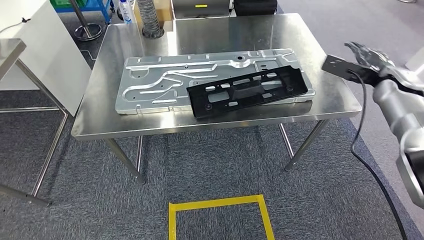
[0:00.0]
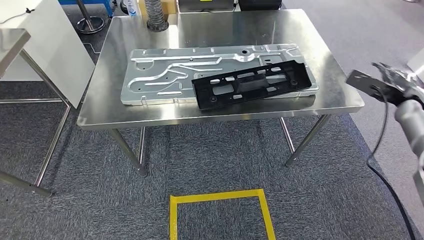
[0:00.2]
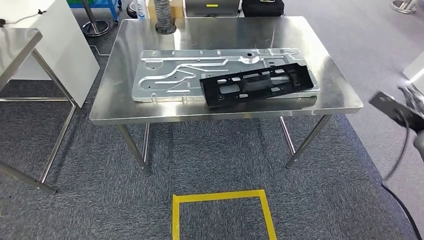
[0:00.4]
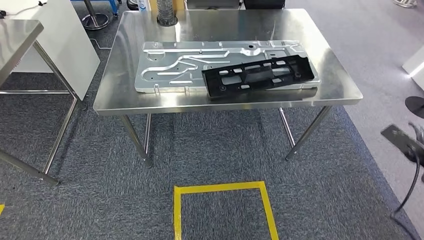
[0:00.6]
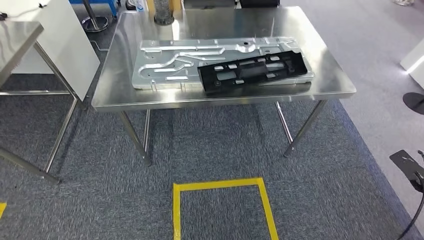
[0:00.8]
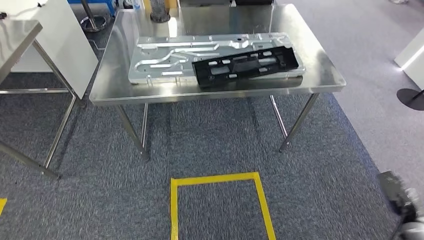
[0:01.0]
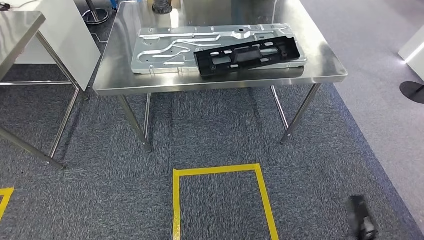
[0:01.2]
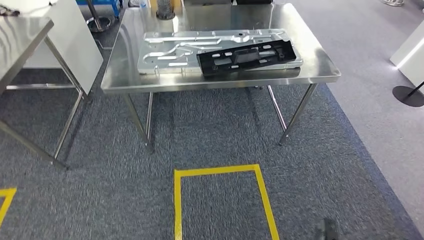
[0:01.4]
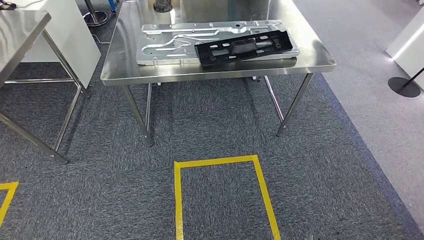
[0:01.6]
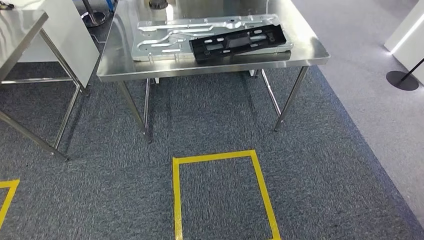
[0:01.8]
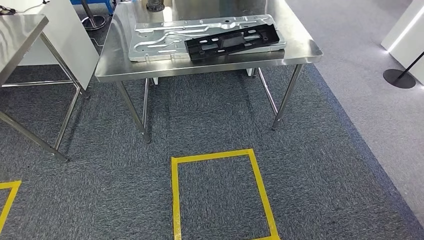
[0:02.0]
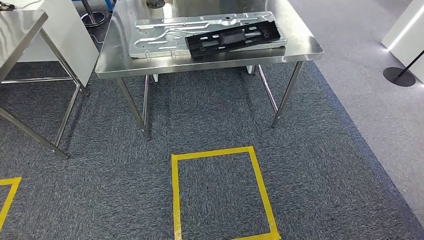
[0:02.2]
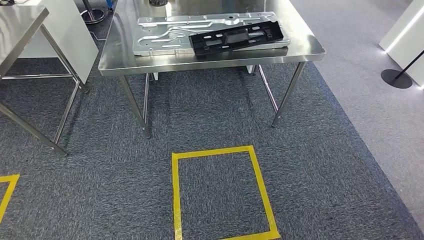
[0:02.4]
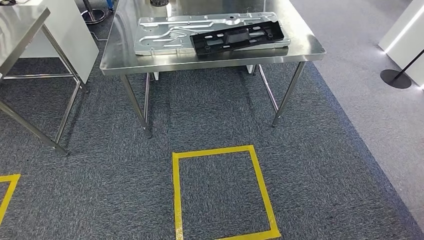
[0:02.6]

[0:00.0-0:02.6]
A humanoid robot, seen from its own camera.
Step, 0:00.0 to 0:02.6: Move to the initial position of the shelf.

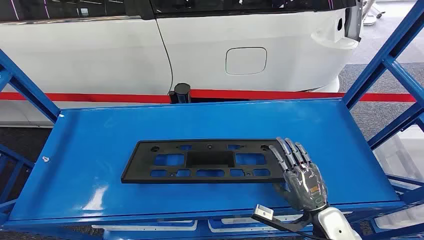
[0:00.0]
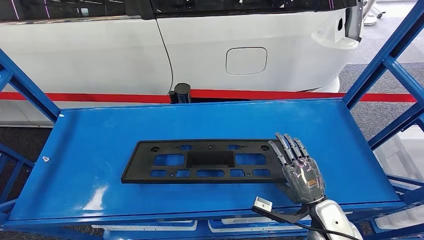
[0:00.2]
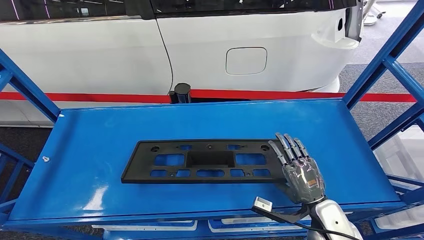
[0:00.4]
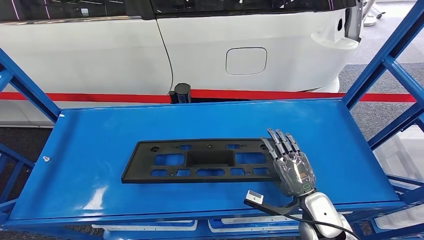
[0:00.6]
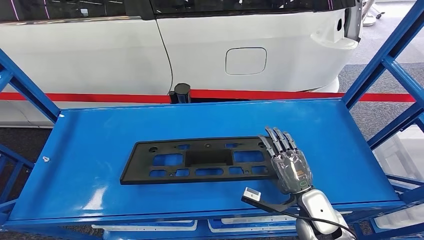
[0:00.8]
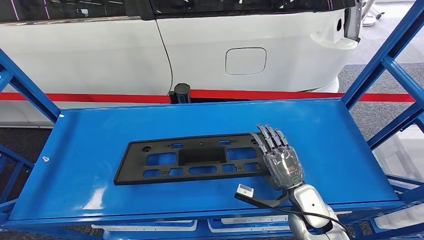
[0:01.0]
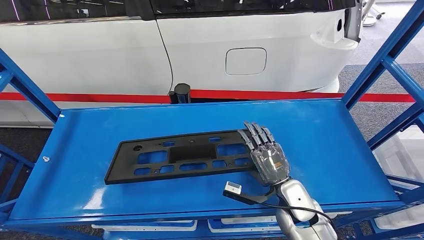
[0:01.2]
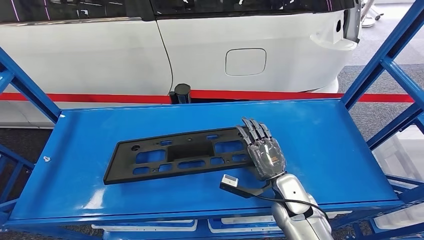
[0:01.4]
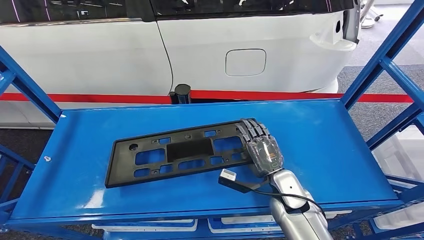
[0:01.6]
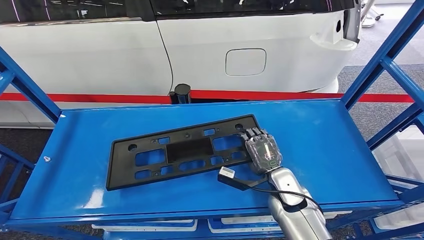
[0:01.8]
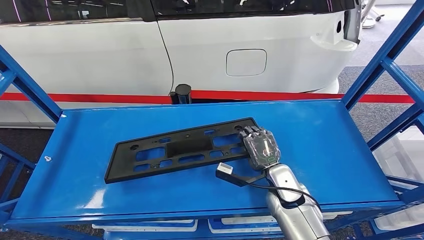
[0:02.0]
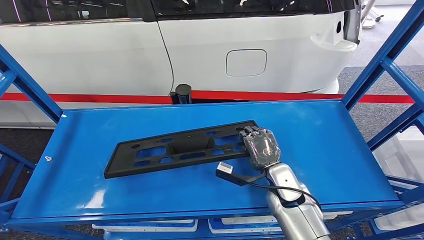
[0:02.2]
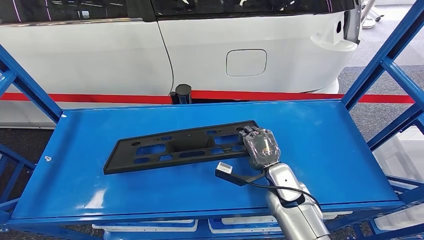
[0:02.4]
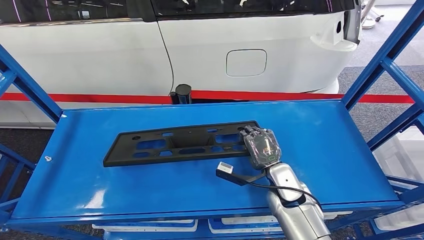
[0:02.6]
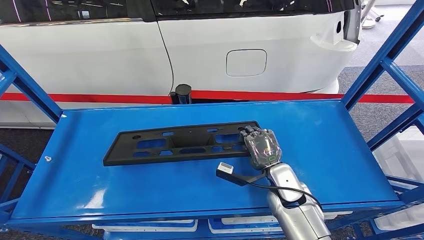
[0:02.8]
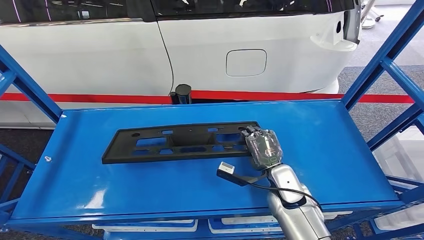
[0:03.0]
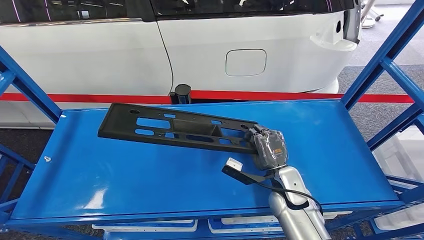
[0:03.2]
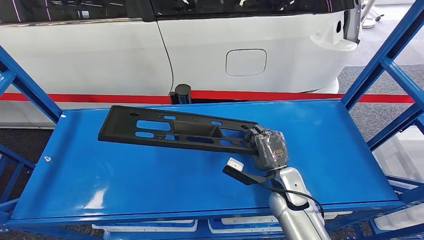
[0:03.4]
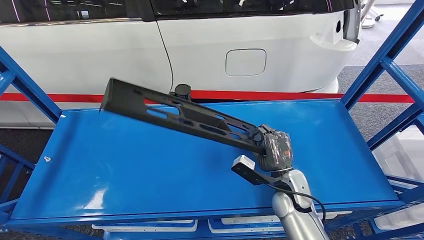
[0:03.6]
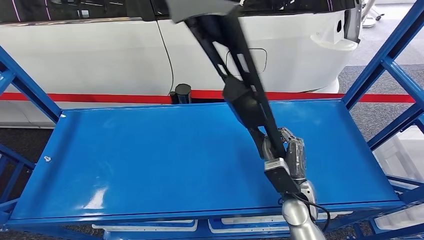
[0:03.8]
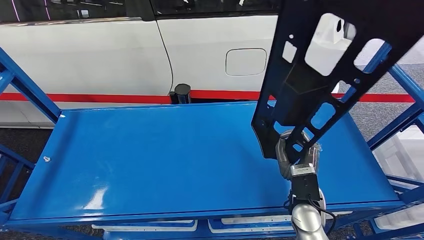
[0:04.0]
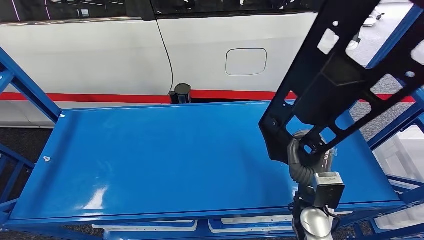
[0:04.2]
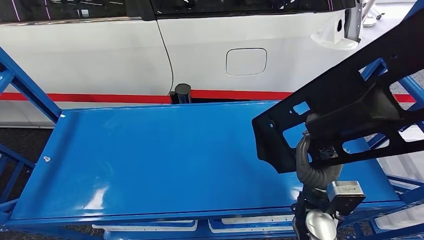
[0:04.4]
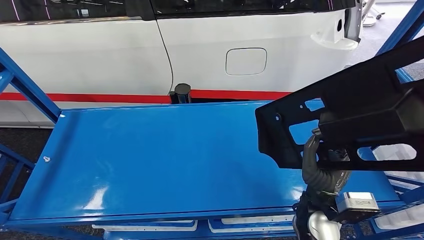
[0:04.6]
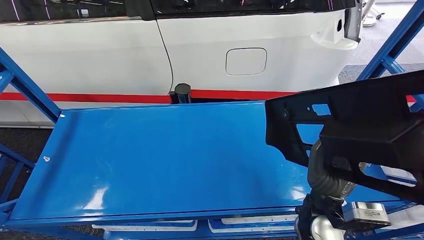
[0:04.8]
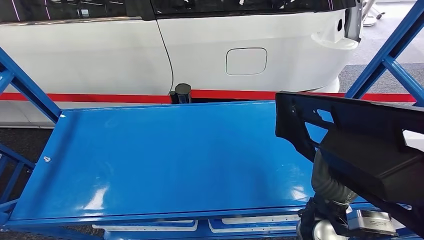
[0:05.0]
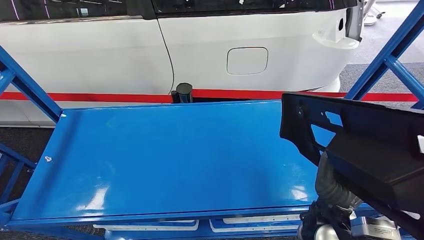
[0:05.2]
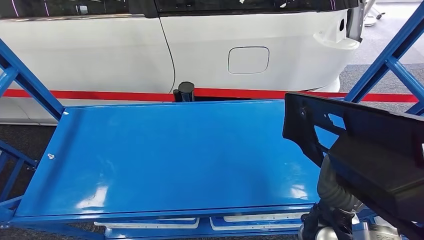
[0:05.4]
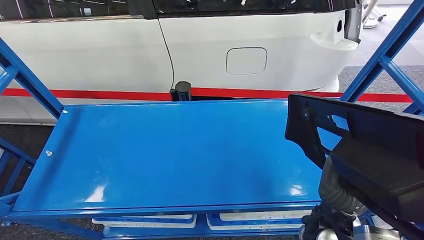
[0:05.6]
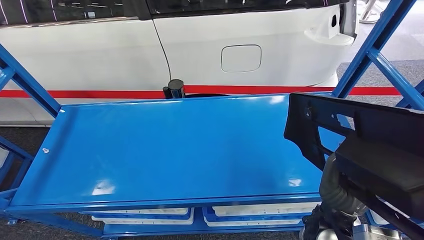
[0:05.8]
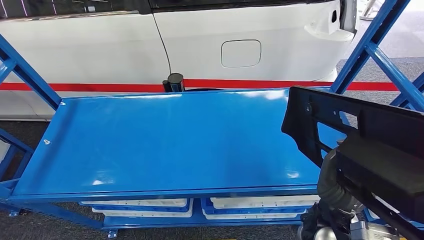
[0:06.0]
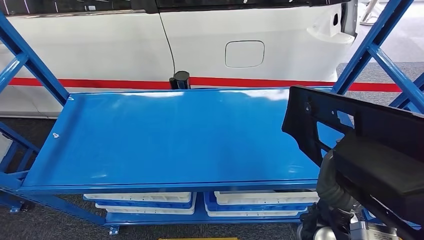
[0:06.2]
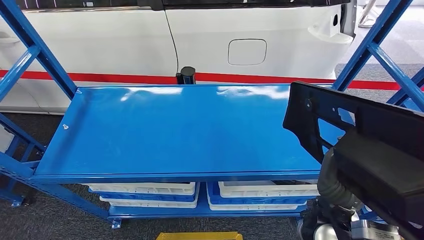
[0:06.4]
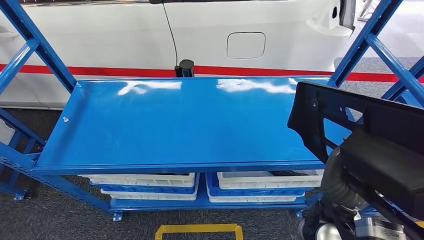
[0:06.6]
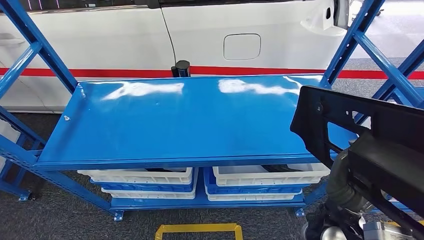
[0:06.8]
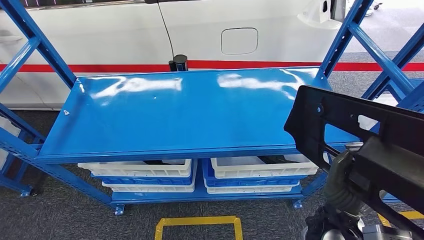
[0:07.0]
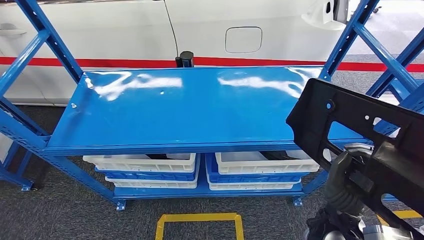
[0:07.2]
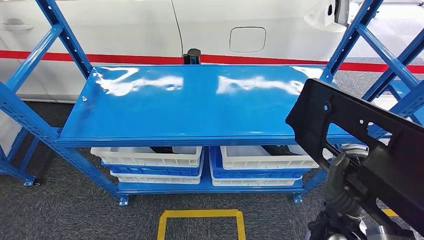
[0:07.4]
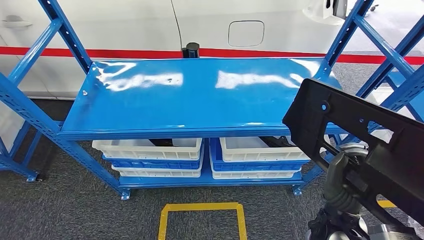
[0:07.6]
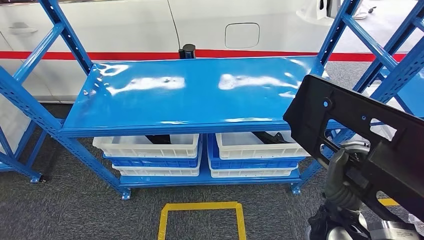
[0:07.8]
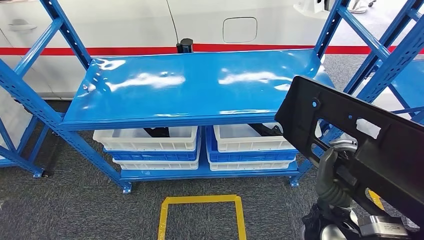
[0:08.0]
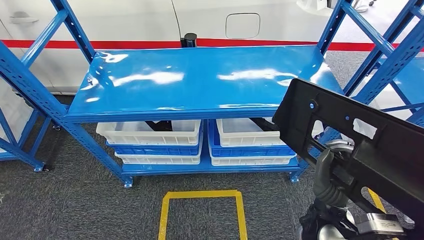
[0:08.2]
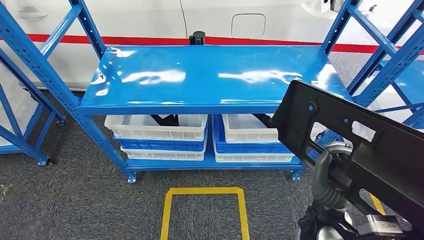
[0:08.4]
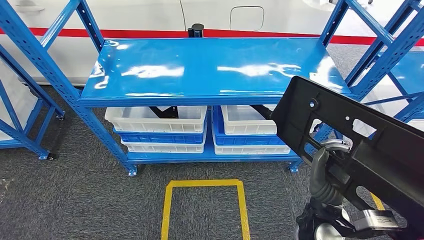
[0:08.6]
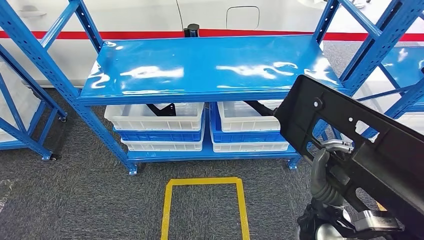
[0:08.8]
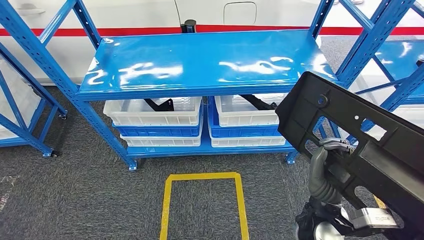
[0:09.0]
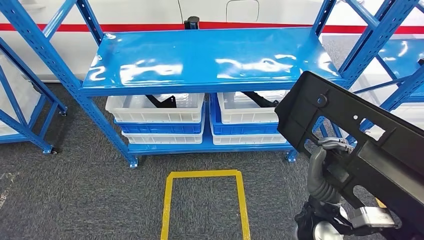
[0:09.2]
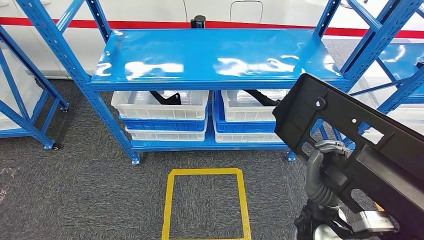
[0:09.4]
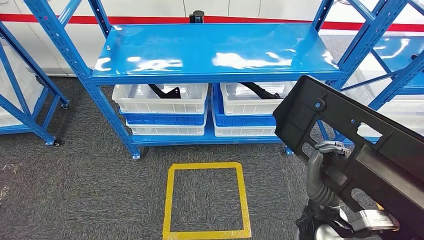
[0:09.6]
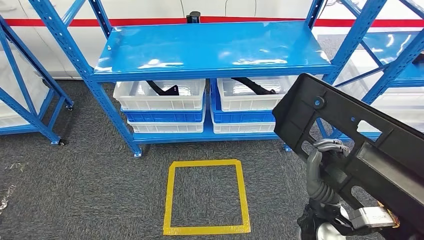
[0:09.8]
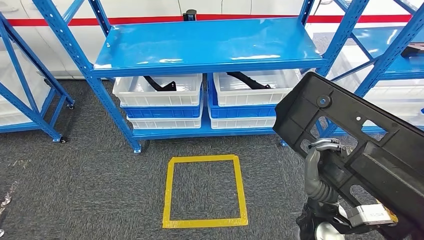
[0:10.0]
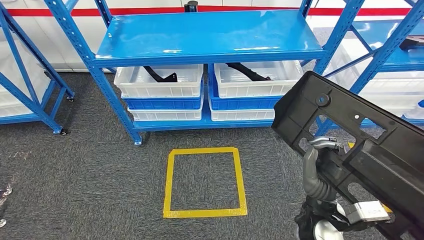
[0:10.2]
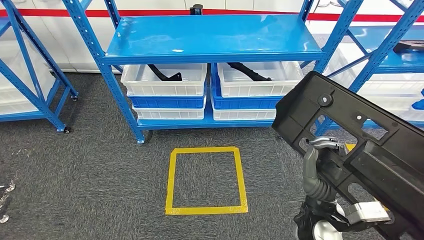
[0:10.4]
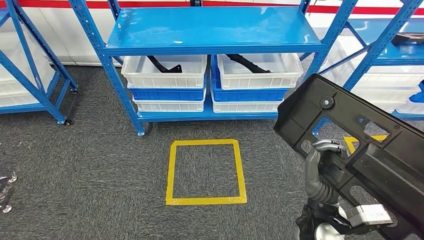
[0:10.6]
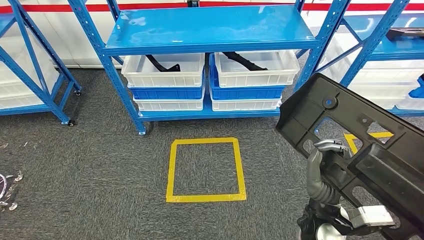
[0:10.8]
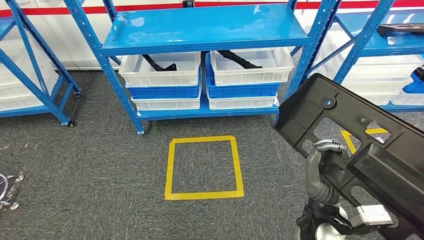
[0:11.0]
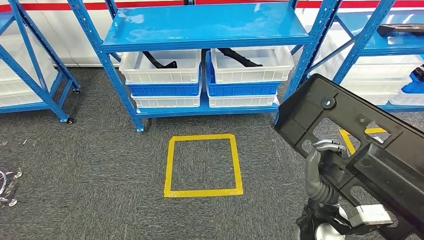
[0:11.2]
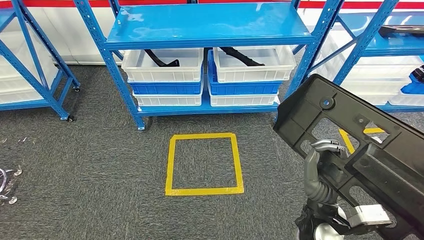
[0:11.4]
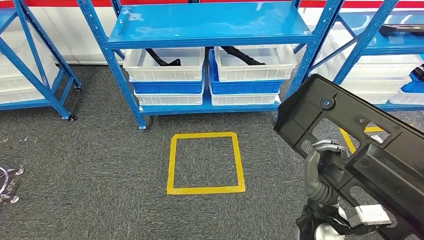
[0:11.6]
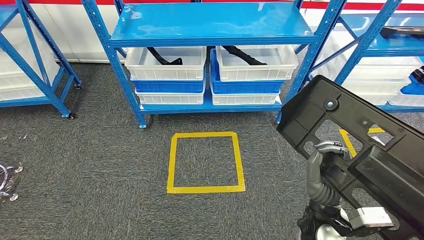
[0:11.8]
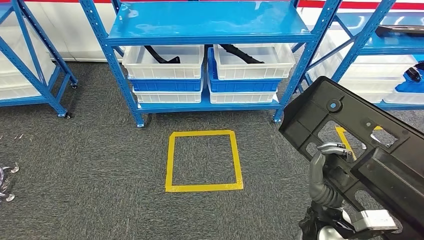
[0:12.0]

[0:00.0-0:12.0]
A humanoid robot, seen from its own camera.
Step, 0:00.0 to 0:07.8: Pick up the large material from the shelf.
0:01.6 to 0:03.0: The hands move only a little.

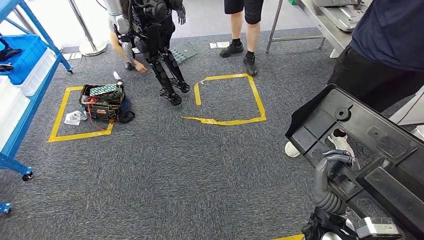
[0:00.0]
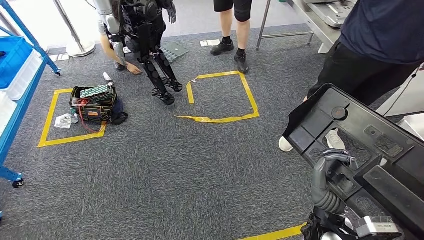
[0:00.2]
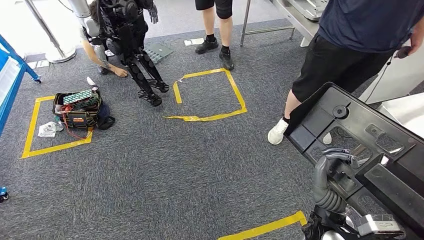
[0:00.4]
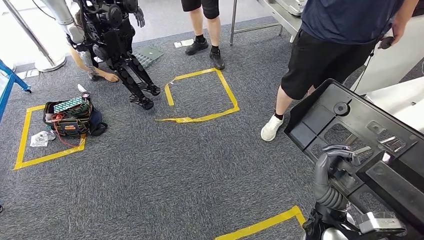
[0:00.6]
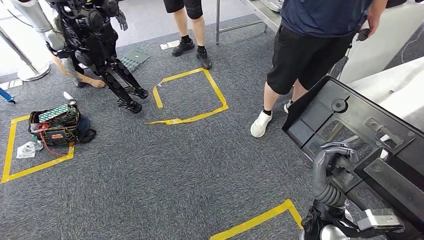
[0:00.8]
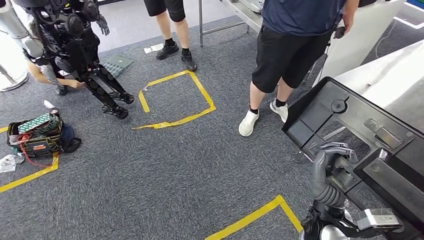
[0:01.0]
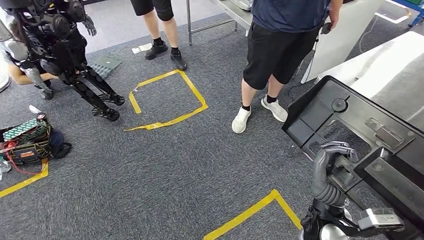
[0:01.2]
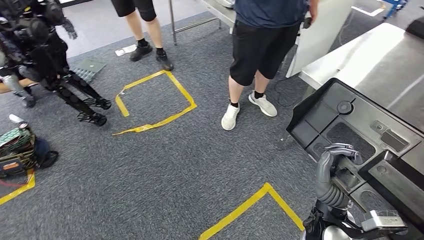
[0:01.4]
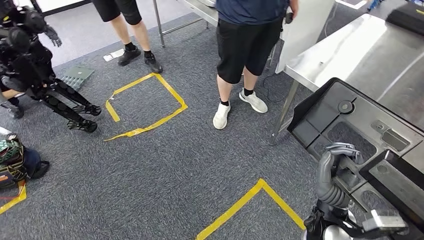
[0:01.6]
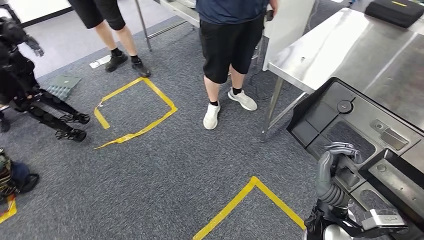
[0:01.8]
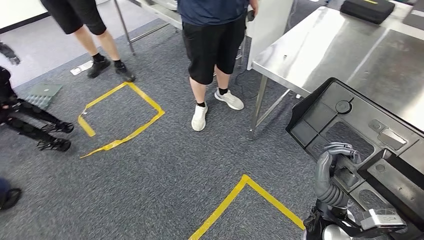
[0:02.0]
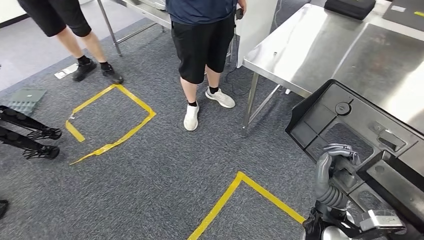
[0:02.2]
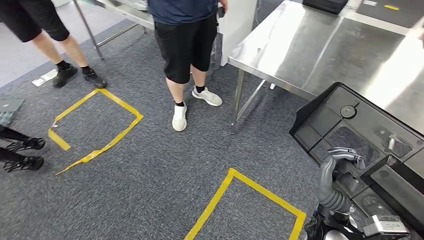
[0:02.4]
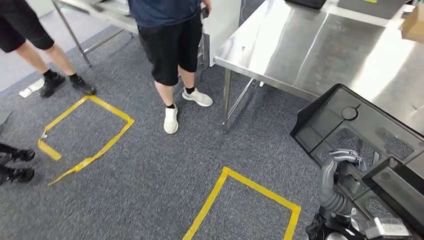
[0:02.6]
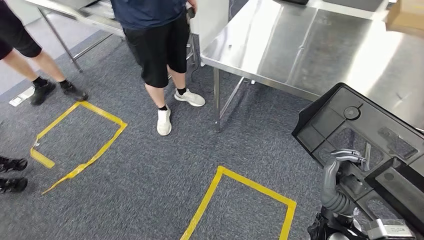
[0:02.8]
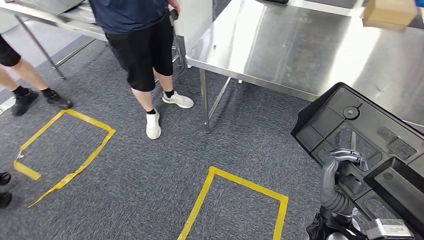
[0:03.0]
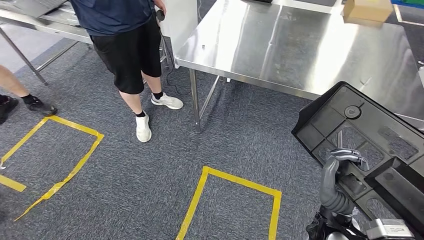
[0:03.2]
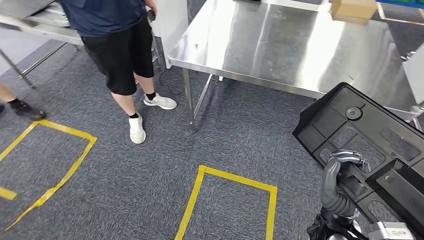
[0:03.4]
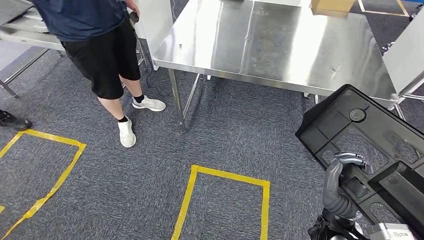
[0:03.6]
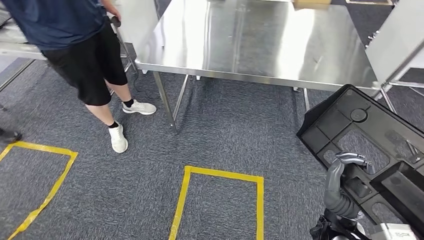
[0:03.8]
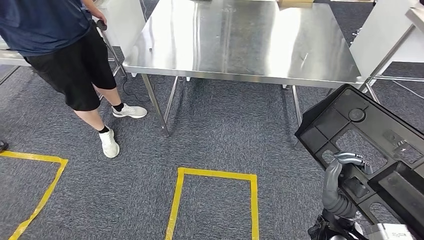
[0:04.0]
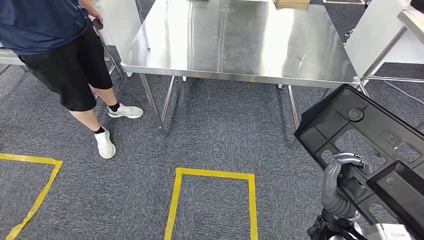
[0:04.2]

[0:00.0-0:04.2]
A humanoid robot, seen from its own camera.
Step, 0:00.0 to 0:03.6: Move the large material to the workbench.
